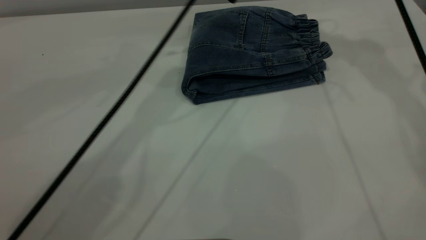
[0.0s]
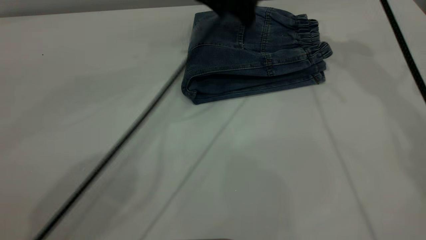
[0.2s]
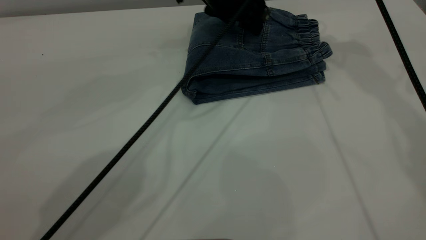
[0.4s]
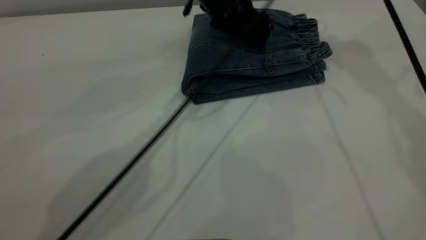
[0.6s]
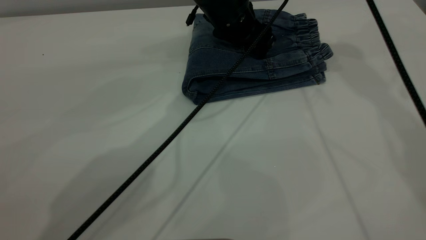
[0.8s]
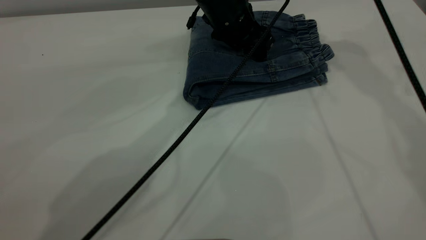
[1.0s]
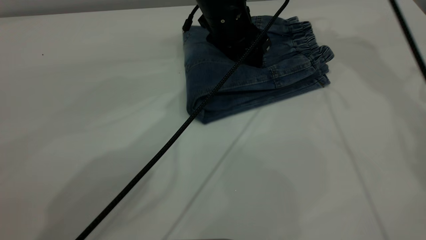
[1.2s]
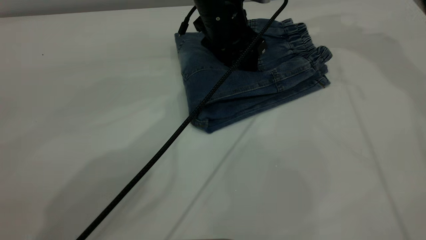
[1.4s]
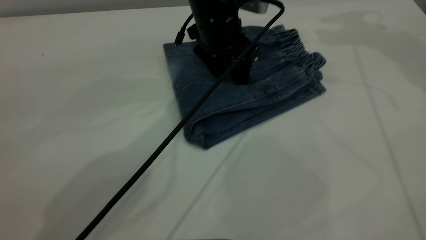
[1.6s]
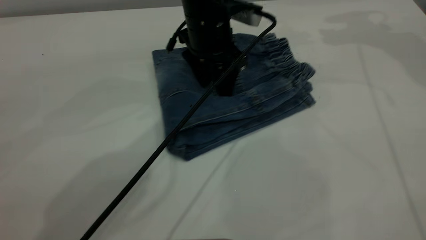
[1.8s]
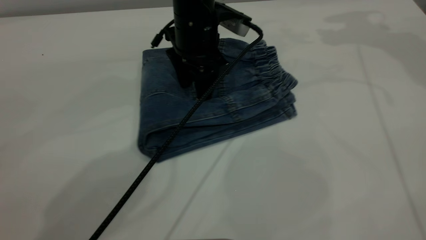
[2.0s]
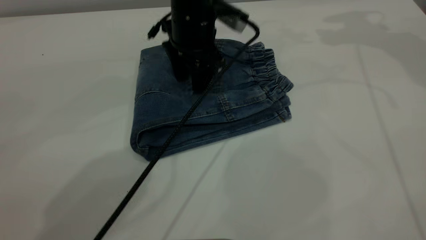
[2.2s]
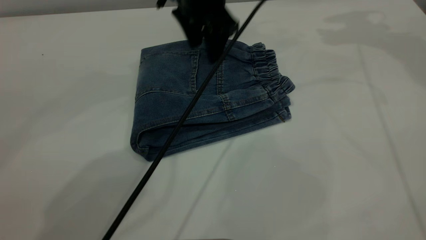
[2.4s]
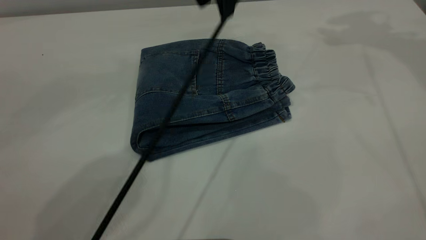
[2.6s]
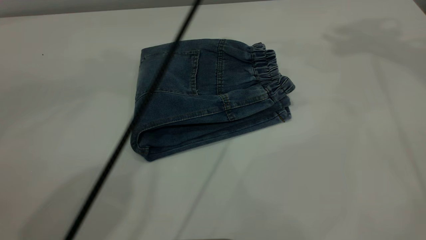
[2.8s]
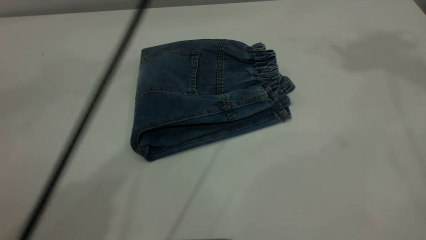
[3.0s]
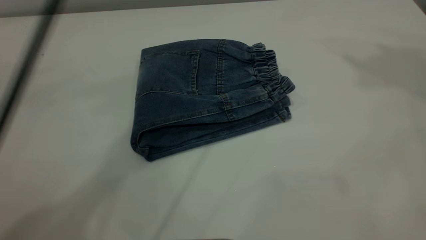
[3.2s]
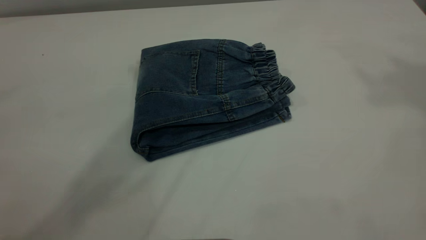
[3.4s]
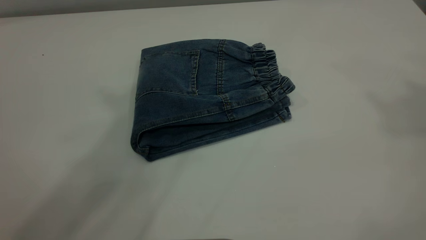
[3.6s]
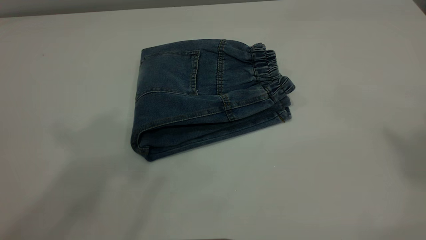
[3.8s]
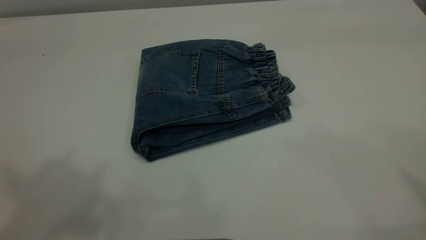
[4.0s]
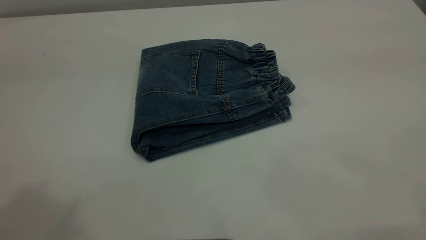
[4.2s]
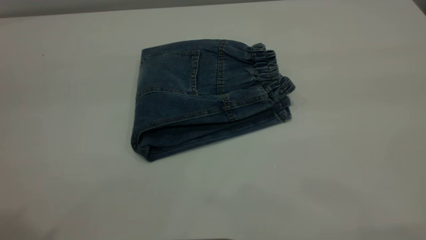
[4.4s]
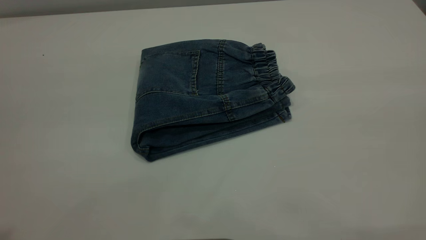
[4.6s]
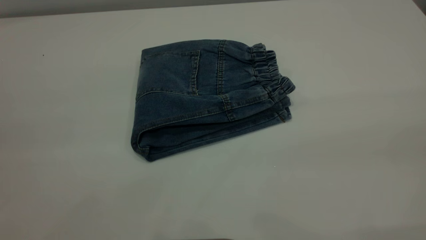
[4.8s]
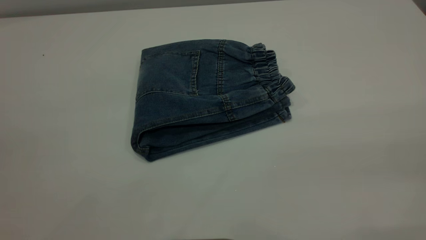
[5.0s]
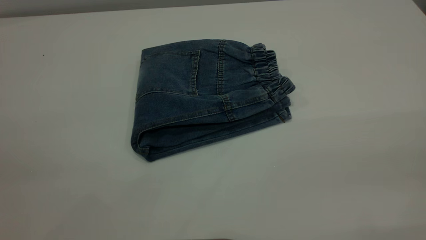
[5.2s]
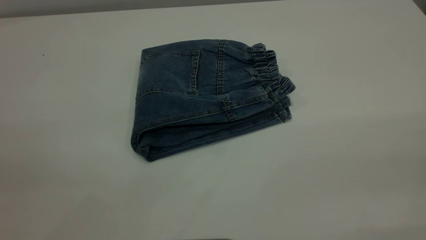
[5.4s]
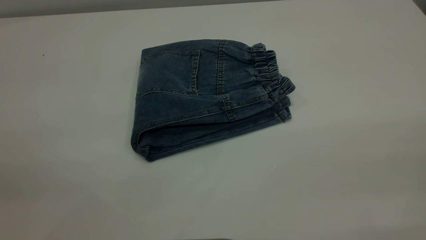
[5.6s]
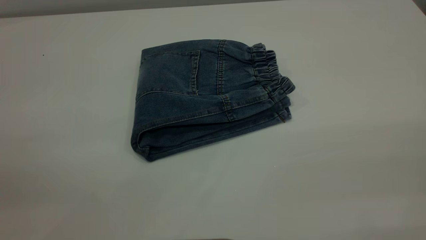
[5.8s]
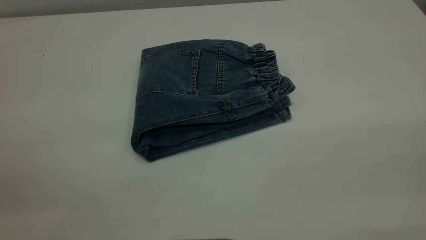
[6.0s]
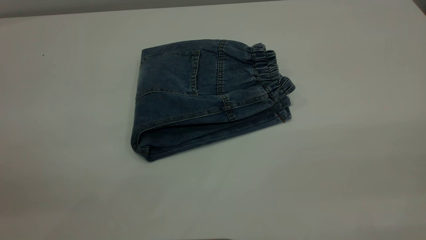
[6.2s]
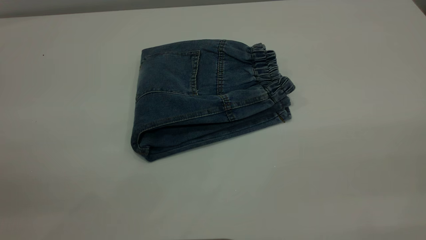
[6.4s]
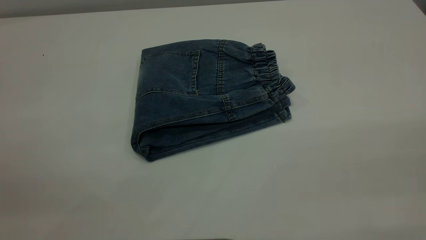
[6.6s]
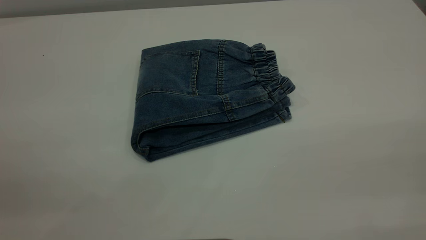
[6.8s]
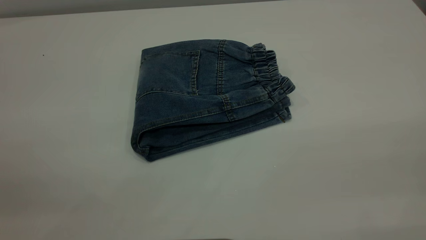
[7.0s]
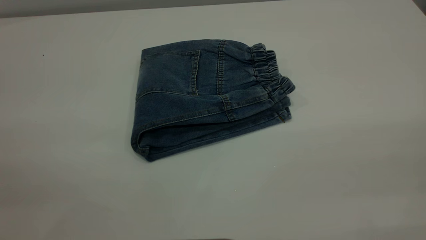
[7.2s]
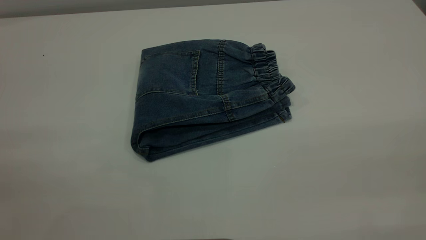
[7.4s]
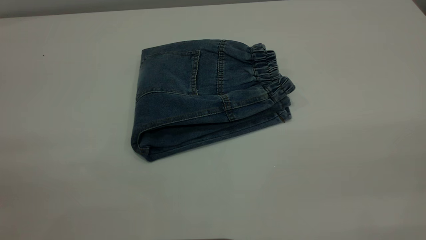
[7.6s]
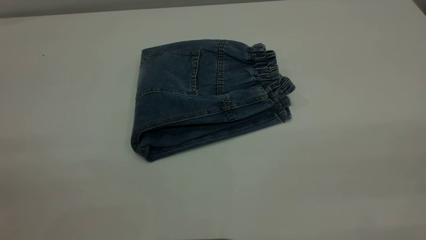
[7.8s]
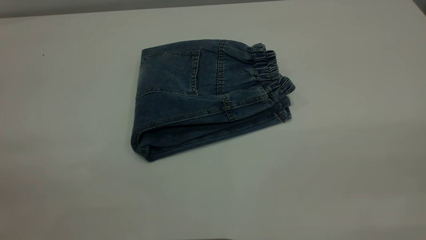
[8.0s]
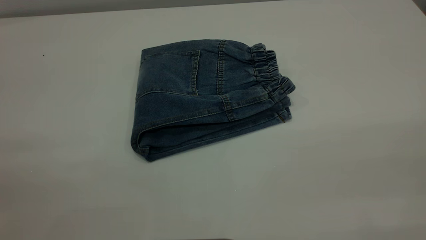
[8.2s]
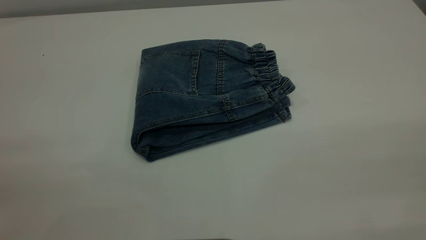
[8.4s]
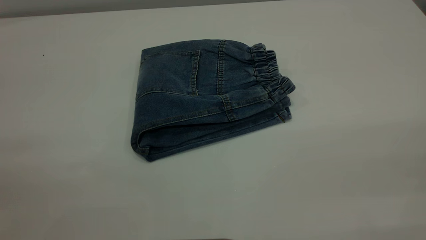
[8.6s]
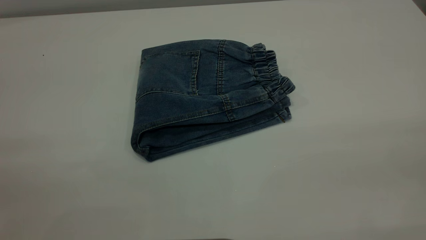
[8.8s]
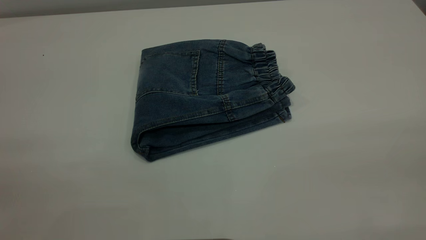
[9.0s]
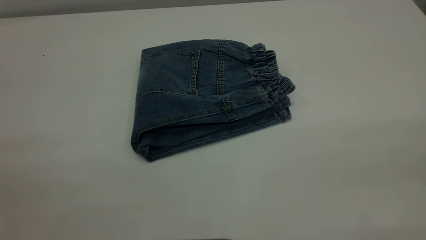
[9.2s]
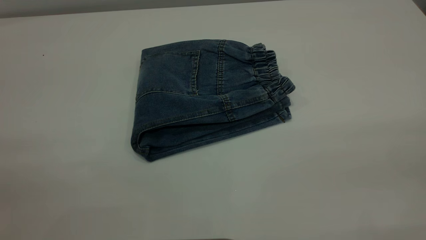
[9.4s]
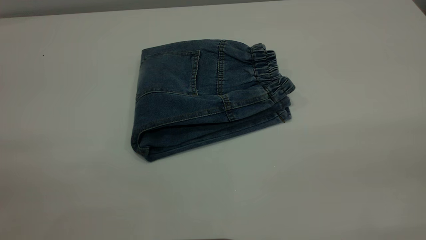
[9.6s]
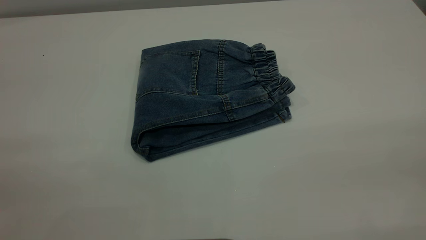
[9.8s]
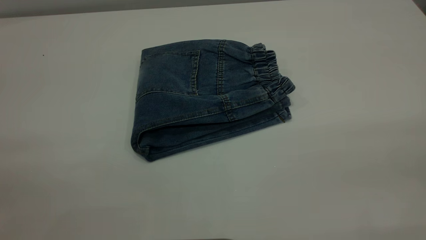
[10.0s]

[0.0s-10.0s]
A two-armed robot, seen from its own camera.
0.0s to 1.4s: The left gripper moves downward, some 10 cm, while the right gripper is displaced to the right by some 5 cm.
1.4s to 2.8s: The right gripper is displaced upward and backward by approximately 20 cm, while the left gripper goes approximately 20 cm upward.
2.8s to 4.2s: The left gripper goes approximately 40 cm backward, to the left and upward.

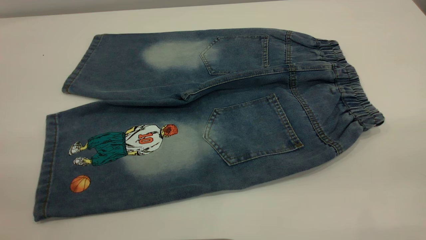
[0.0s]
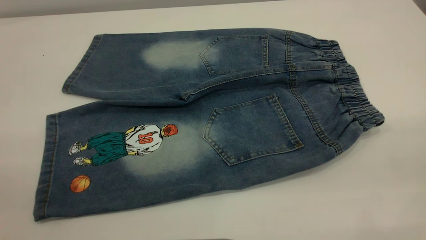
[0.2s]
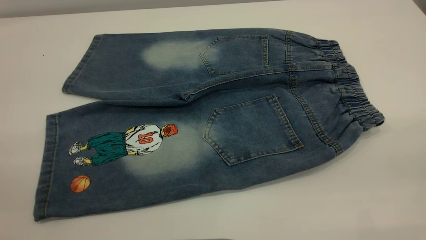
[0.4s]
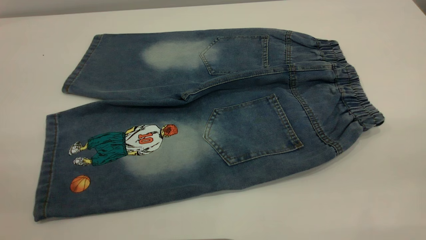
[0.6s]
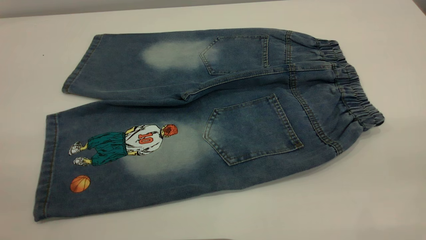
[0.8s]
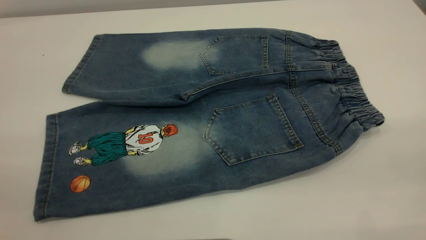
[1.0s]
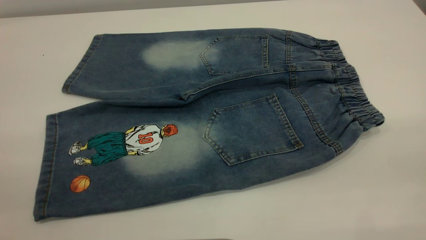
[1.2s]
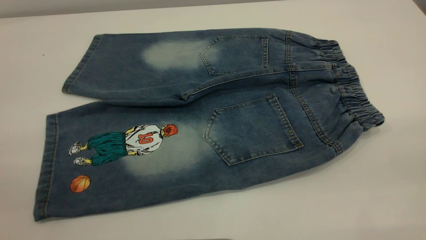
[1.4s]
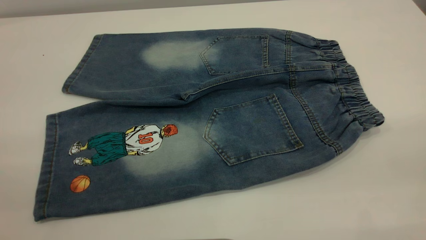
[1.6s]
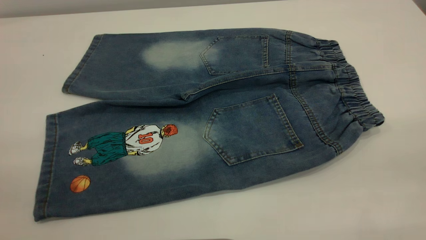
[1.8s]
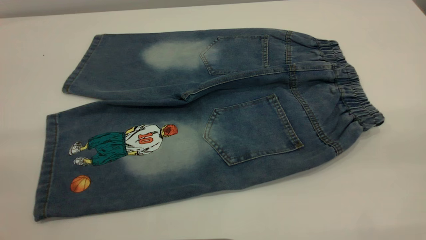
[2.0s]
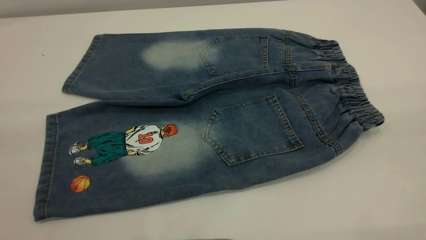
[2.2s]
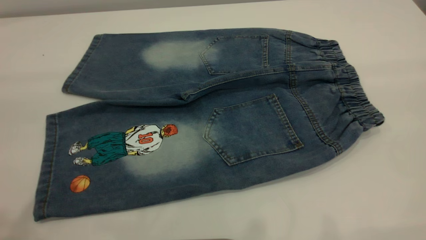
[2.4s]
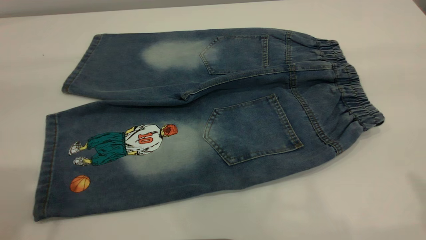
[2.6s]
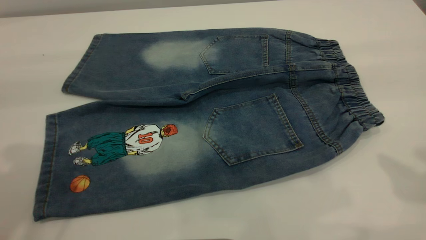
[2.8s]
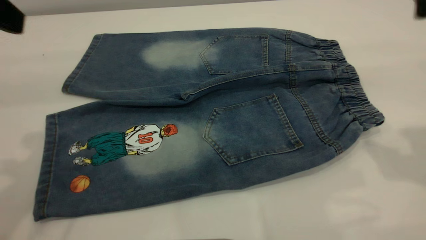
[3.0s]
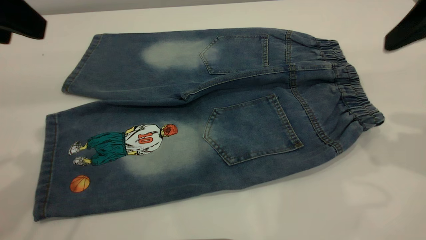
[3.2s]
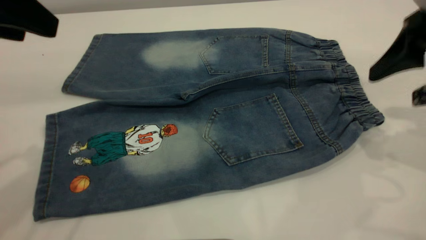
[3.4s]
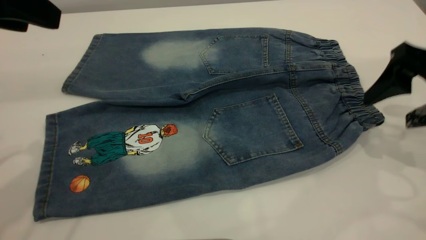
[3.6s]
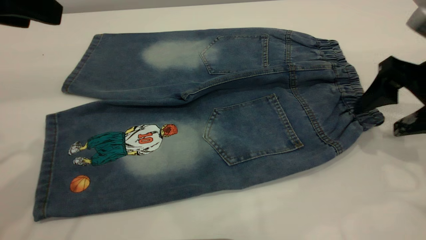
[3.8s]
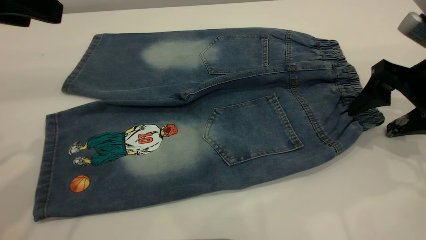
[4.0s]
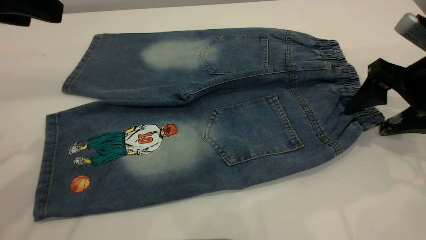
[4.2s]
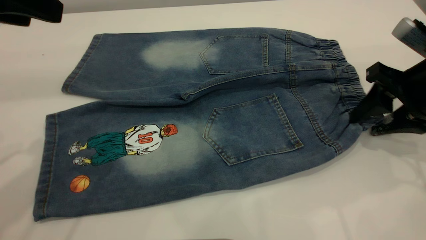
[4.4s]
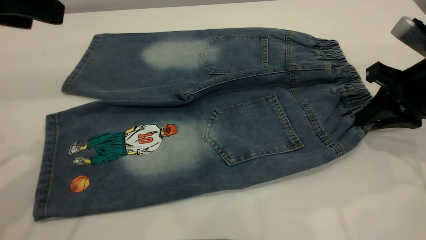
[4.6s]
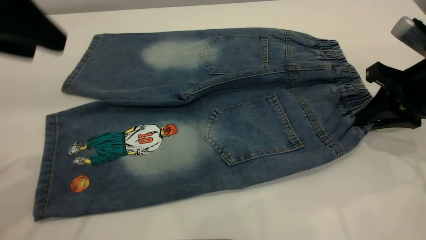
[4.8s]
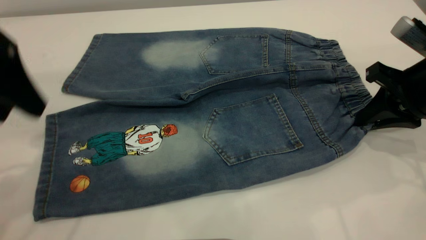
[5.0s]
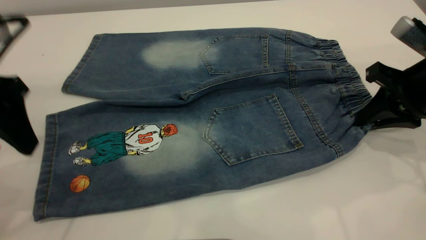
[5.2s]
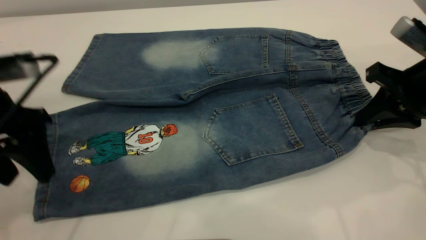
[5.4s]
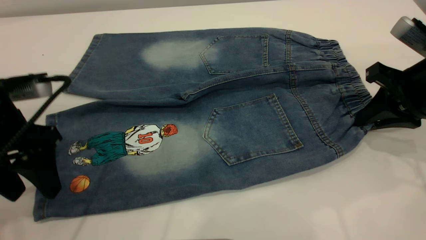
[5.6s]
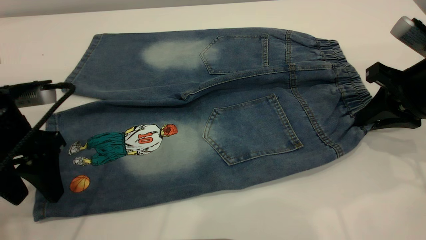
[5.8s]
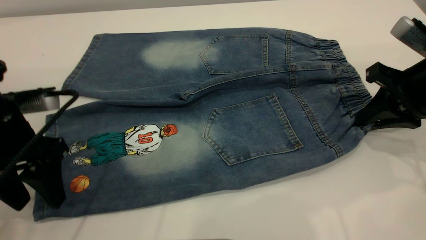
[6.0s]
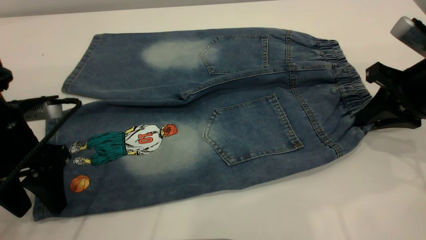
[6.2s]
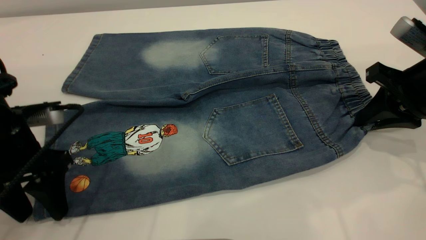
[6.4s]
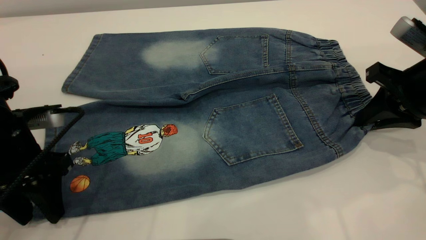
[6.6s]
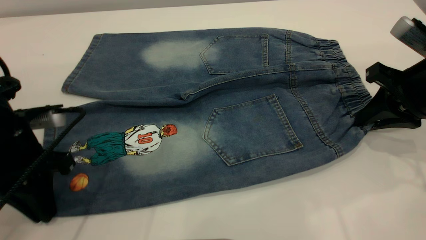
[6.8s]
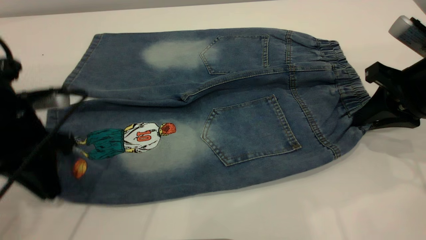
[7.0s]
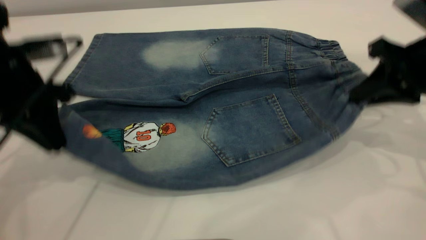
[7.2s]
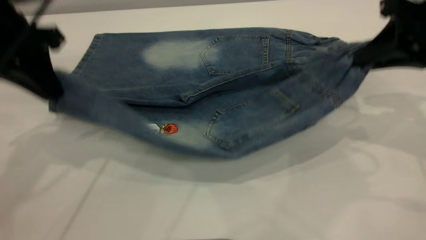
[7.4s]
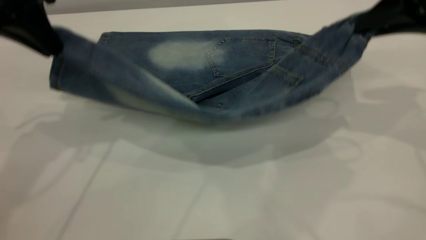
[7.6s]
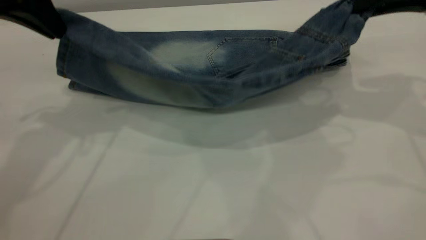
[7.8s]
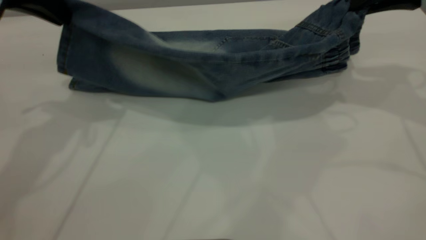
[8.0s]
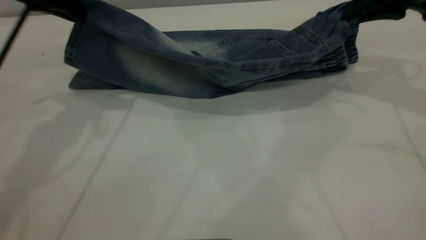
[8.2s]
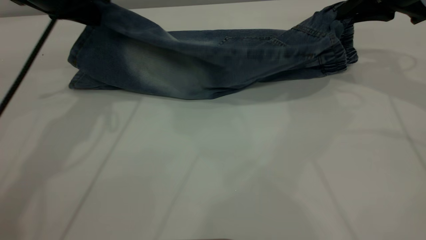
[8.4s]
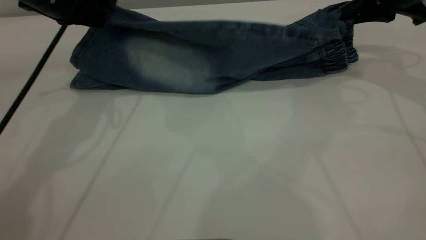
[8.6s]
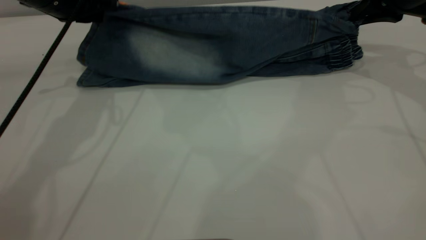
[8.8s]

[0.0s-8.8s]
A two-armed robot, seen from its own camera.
0.0s to 1.4s: Both grippers stay about where they are.
1.4s to 3.0s: The left gripper shifts roughly 25 cm forward.
3.0s to 4.4s: The right gripper shifts some 15 cm downward, and closes its fingers.
4.4s to 5.8s: The right gripper closes its fingers. Meanwhile the left gripper is displaced downward by approximately 15 cm.
5.8s to 7.4s: The left gripper moves upward and forward, roughly 10 cm, and closes up; the right gripper is displaced upward by about 10 cm.
7.4s to 8.8s: Both grippers move forward, about 10 cm.
